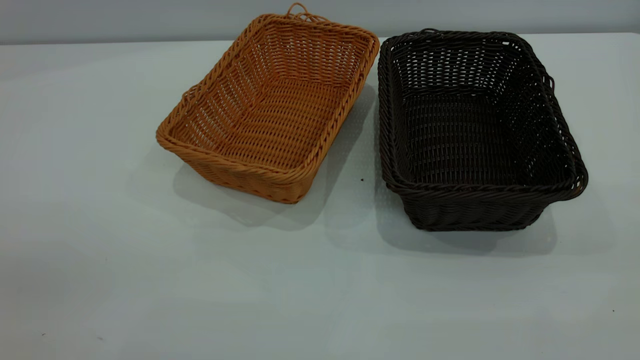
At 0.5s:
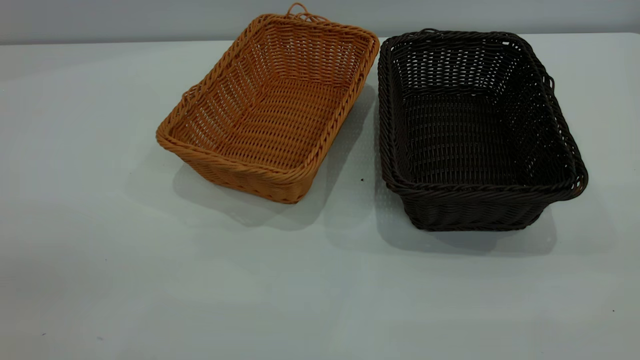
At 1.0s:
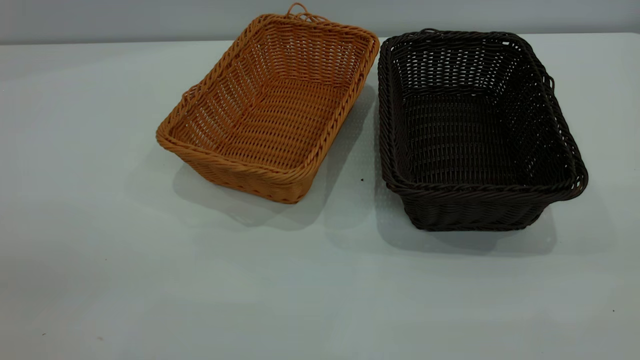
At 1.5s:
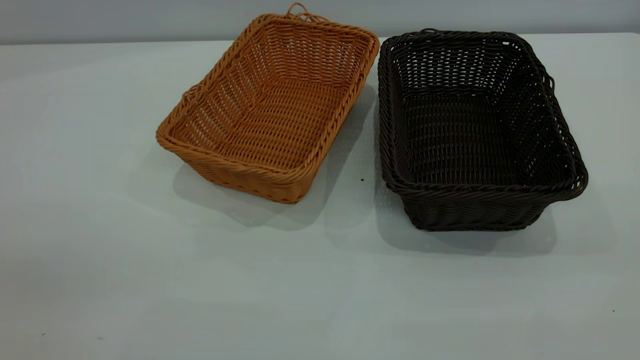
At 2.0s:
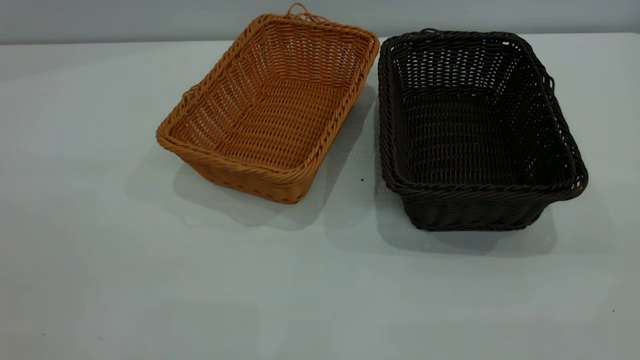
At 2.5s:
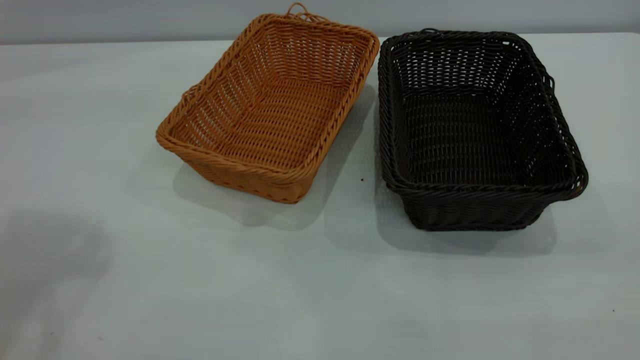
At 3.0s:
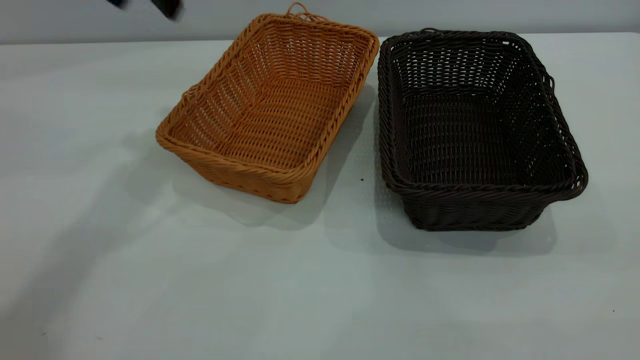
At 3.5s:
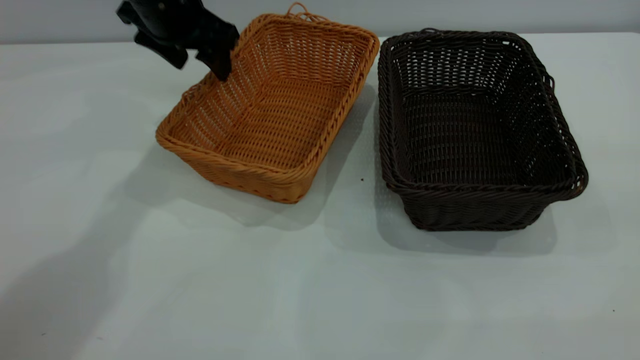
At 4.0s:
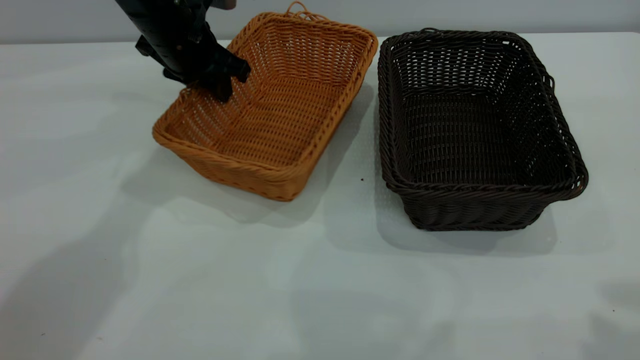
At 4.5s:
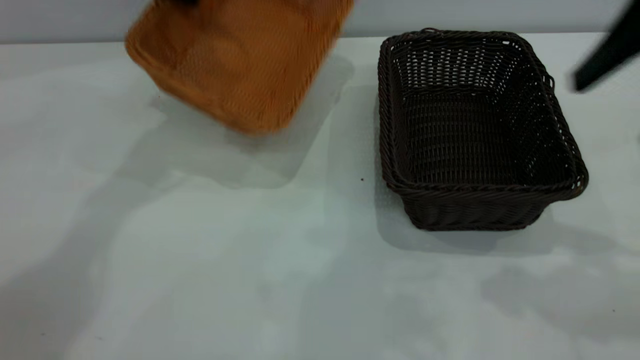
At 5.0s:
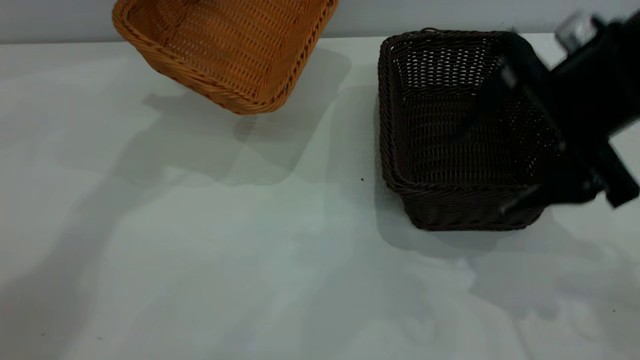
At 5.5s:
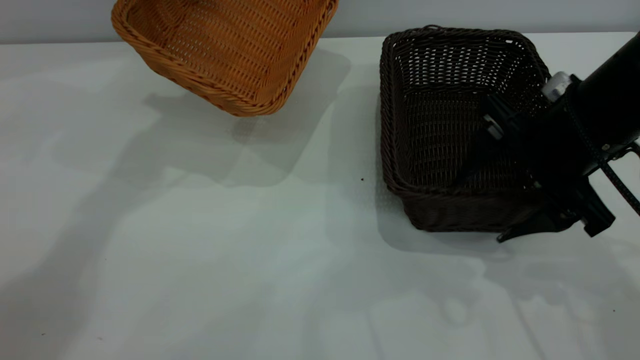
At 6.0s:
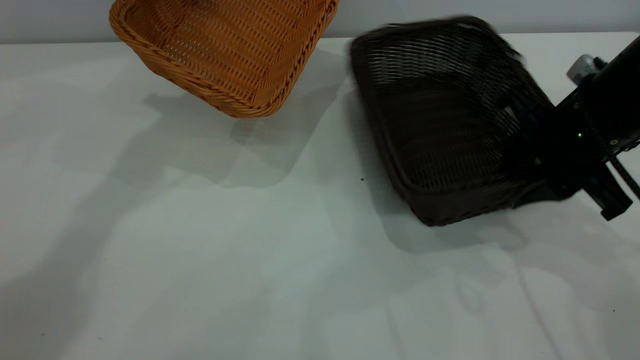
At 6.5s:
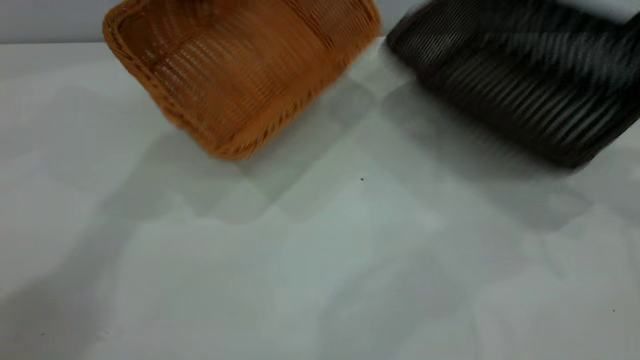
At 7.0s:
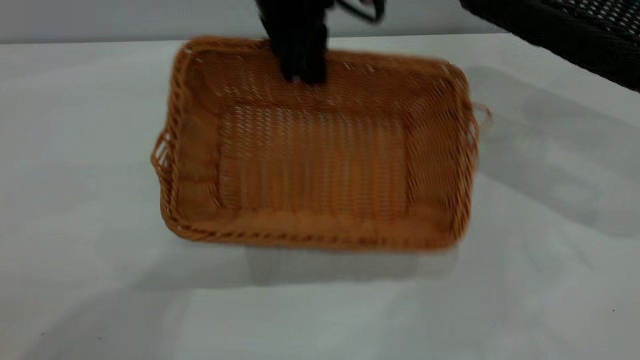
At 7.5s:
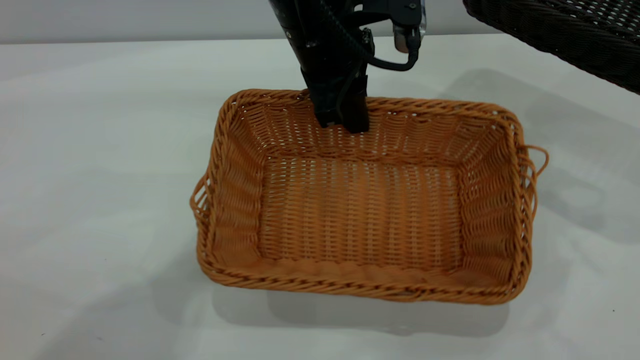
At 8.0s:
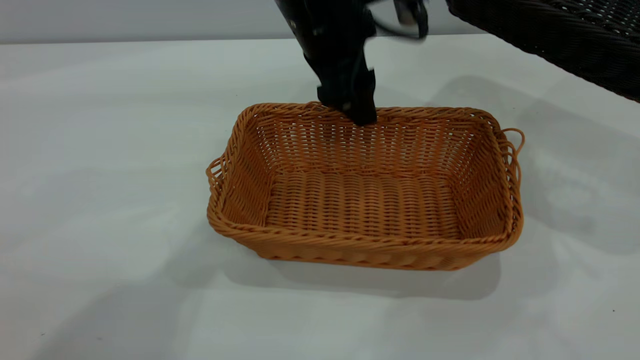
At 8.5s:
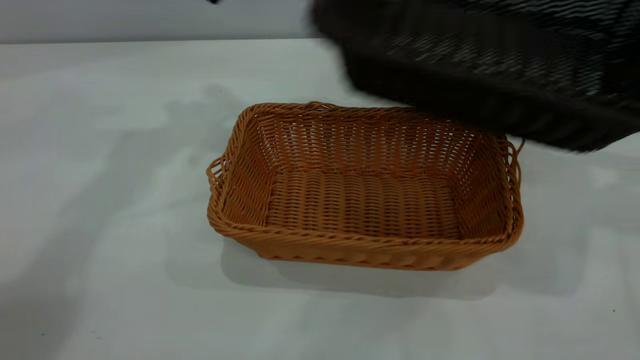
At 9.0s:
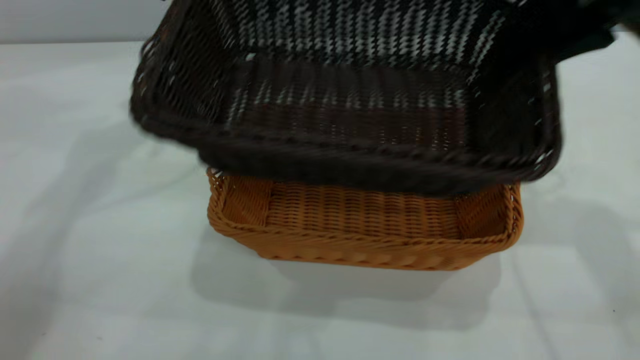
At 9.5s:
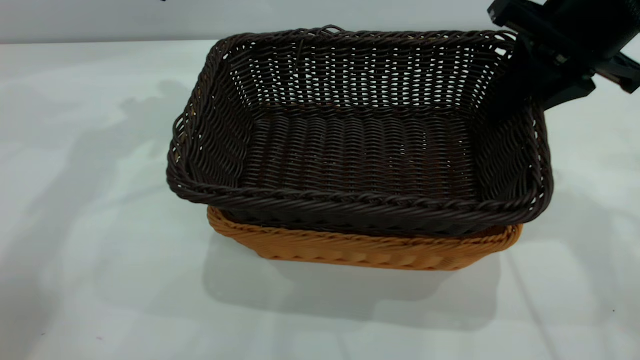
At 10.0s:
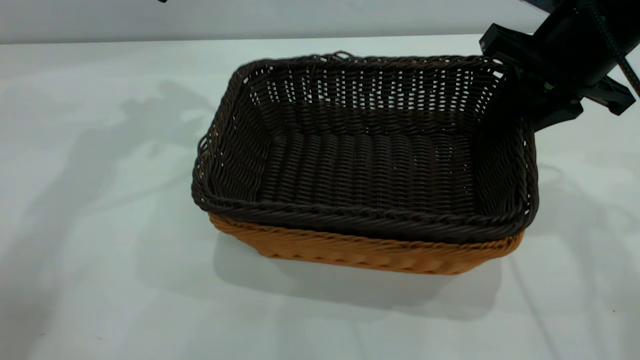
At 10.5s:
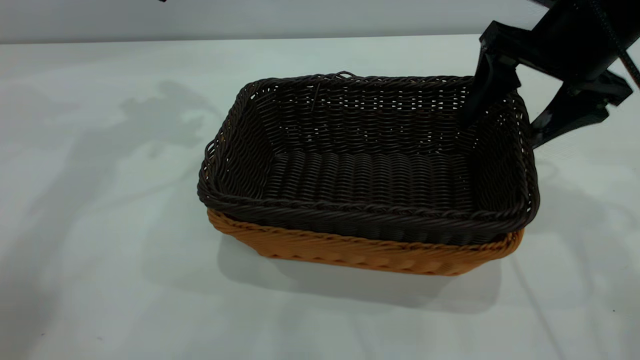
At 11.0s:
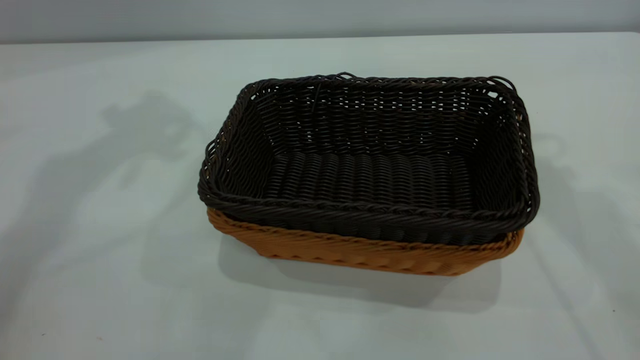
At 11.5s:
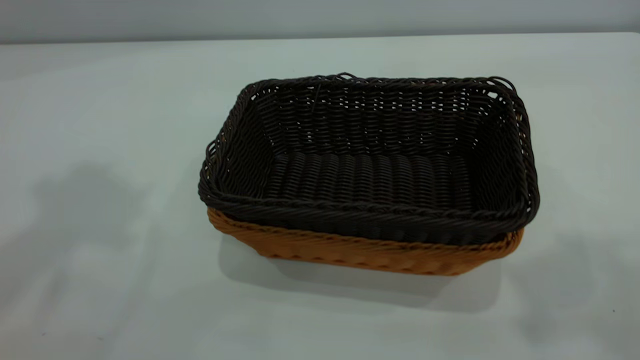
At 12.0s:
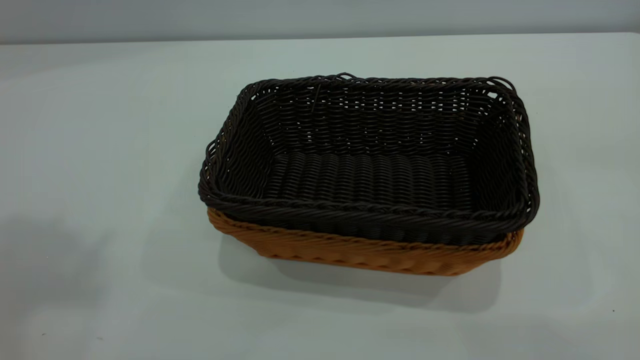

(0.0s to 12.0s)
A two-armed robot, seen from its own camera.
Task of the whole recording: the left gripper grasp the brown basket and place it in the center of the table, the right gripper grasp the black basket and place it inside the brown one.
Step, 0.0s - 6.0s: Pick up the light basket with the right gripper.
Step, 7.0s - 8.0s: Place the light-colored basket in the center.
Step, 8.5s - 10.5s: Place the dark basket on top of the light basket.
2.0s - 4.0s: The left gripper goes approximately 50 cm forward and downward, and closes. The right gripper is displaced forward by roughly 15 cm.
4.0s - 6.0s: The right gripper heads downward and forward, covering about 25 cm, and closes its fingers. The left gripper goes approximately 15 cm upward.
6.0s - 8.0s: The right gripper goes about 25 cm to the right and upward, while the left gripper is displaced to the right and backward by roughly 20 cm, and opens up.
8.0s - 10.0s: The right gripper travels to the left and downward by roughly 20 cm. The left gripper moves to the left, about 20 cm.
10.0s - 12.0s: The grippers both shift upward and backward by roughly 40 cm. The right gripper opens its fingers.

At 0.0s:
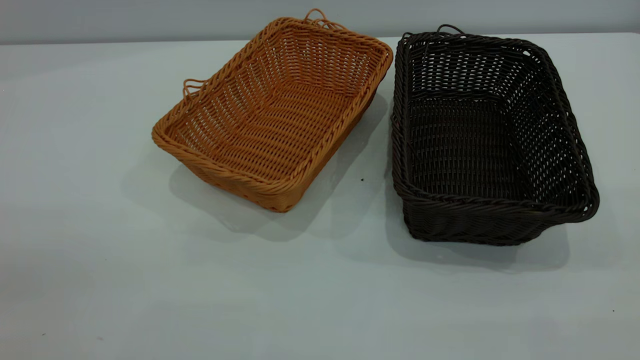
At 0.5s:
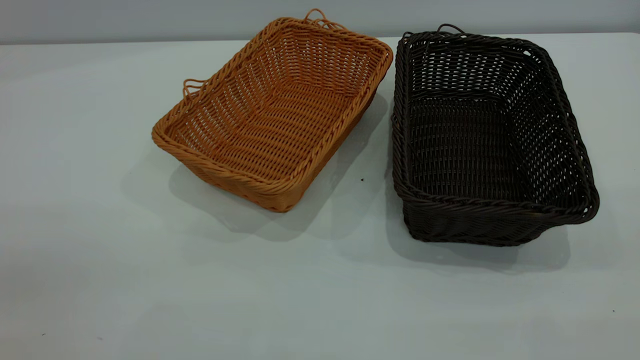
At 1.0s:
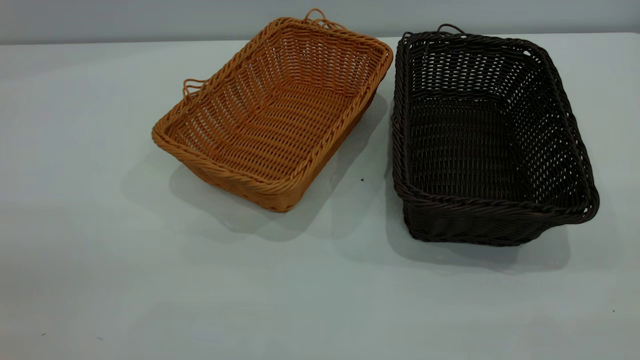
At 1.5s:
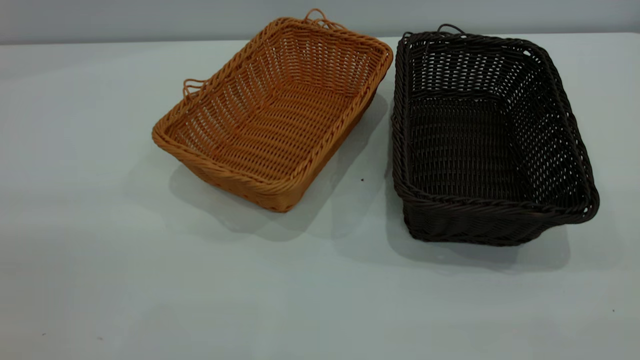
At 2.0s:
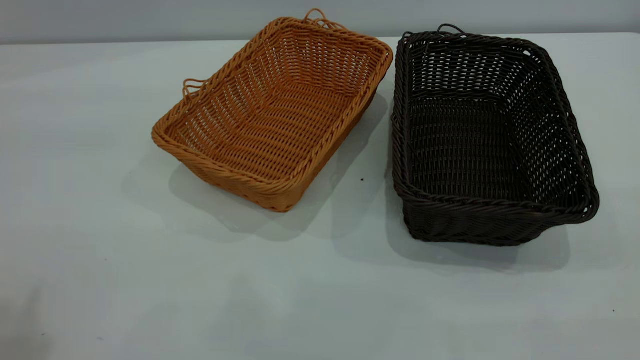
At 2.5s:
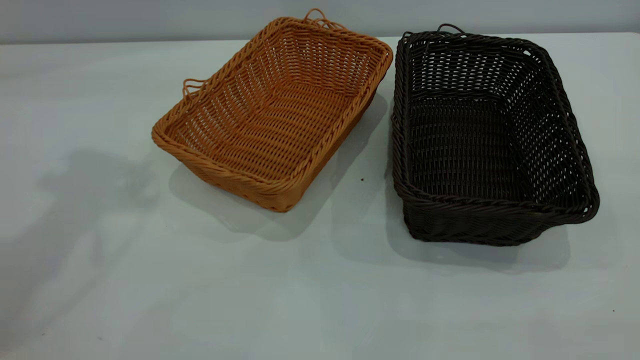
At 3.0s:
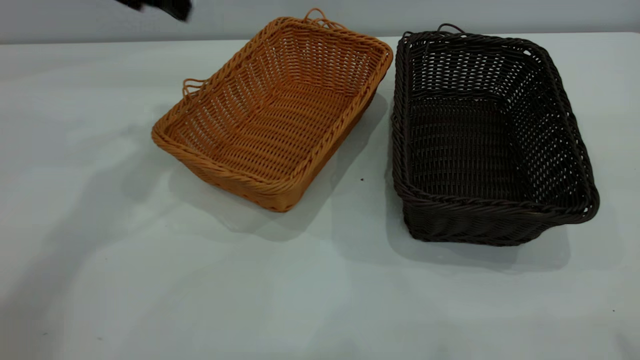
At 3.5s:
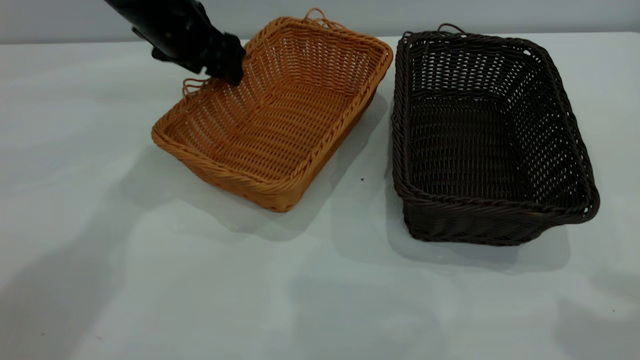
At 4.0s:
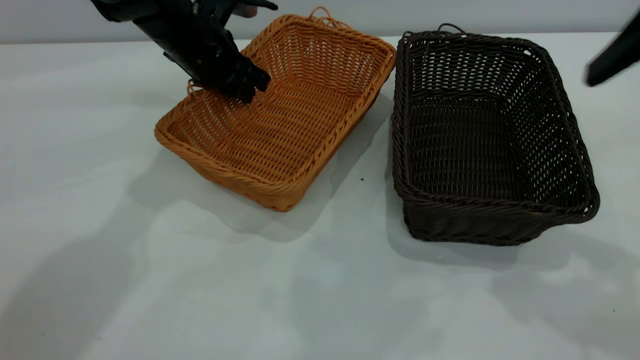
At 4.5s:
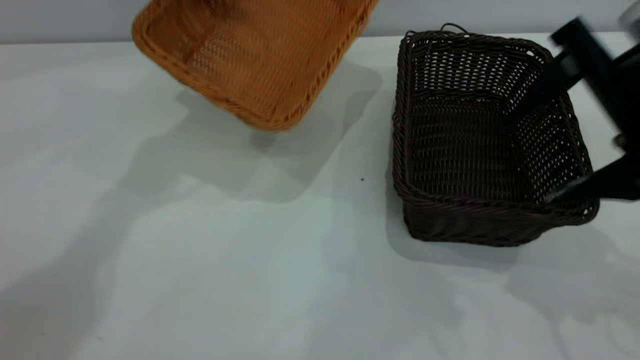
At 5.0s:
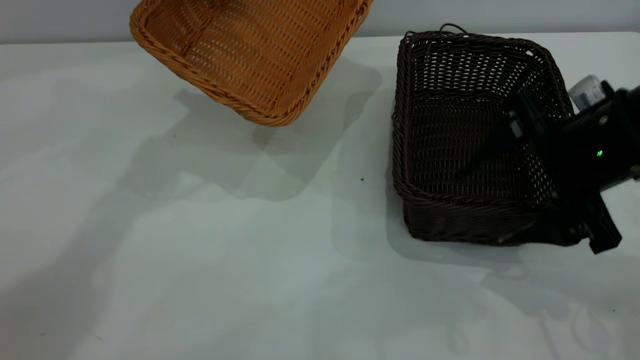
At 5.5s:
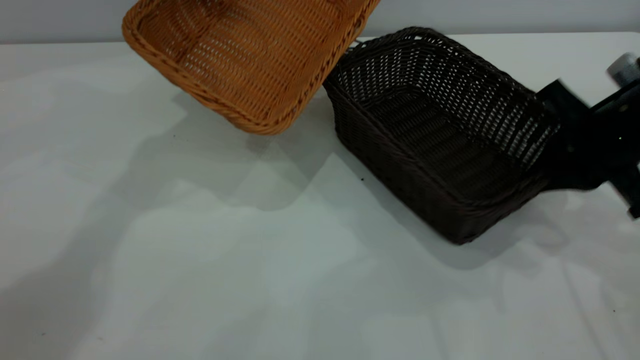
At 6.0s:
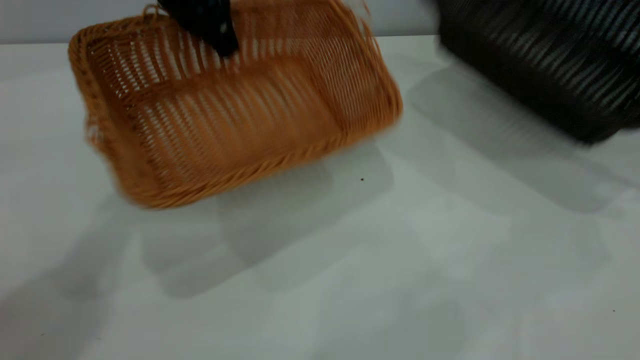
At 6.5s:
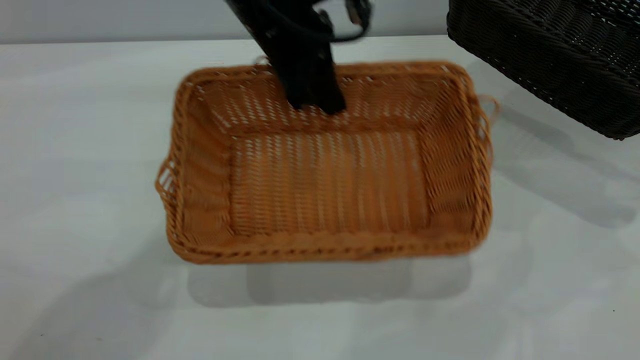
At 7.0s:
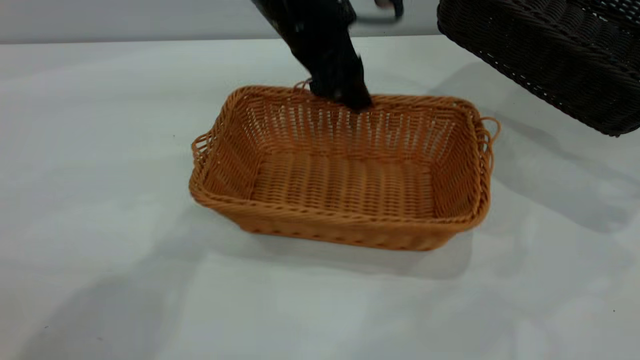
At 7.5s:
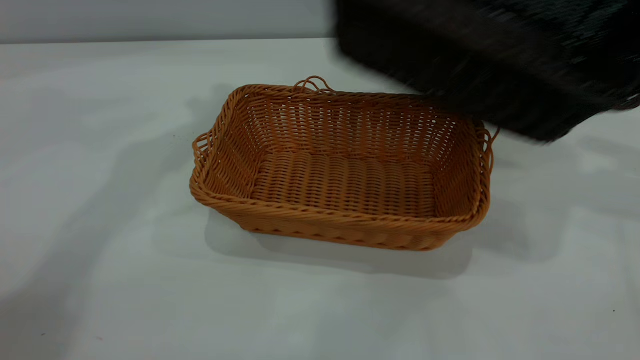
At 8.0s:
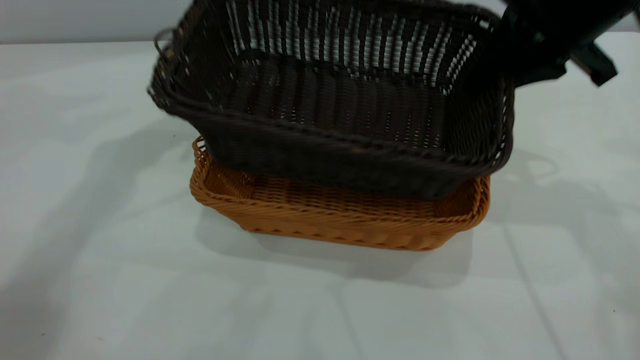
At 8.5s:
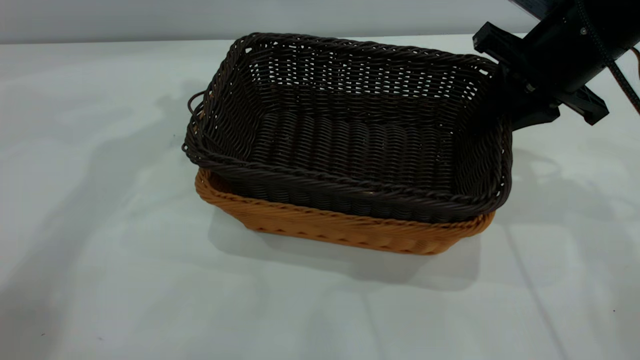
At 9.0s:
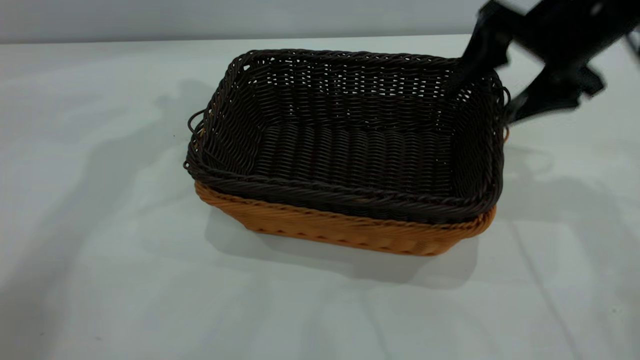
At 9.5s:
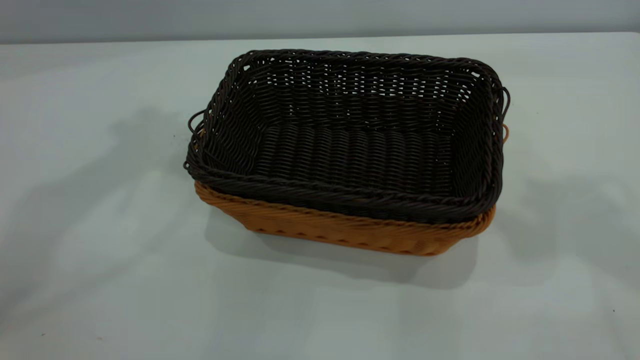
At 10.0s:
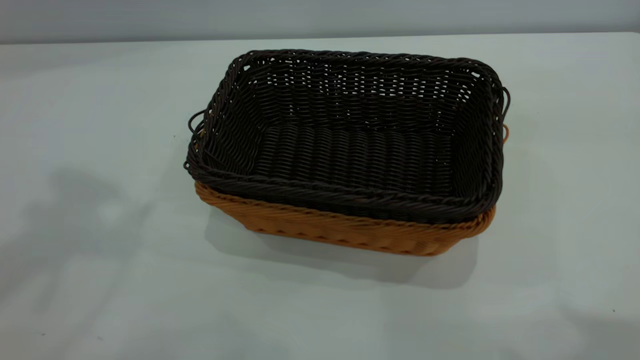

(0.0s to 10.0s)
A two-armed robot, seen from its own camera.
Task of the whole recording: the left gripper grasp the brown basket and place it in the center of the table, the right gripper grasp the black basket and place it inside the brown one.
Step, 0.0s - 5.5s: Pick up the light basket with the right gripper.
Step, 6.0s - 7.0s: Place the light-colored basket in the center.
Step, 7.5s - 9.0s: Place the dark basket on top of the light basket.
2.0s - 4.0s: The right gripper goes roughly 20 cm forward, while the left gripper goes about 40 cm forward, downward and to the right, and closes up.
4.0s - 6.0s: The right gripper moves to the right, forward and downward, roughly 25 cm, and closes its fingers. The left gripper moves upward, some 10 cm.
6.0s - 8.0s: The right gripper goes about 20 cm to the left; the left gripper heads upward, covering some 10 cm, travels to the right and back again, some 10 cm each way, and opens its fingers.
8.0s - 10.0s: The right gripper goes approximately 35 cm upward and backward, and opens its fingers. Meanwhile the left gripper goes approximately 25 cm backward and upward.
